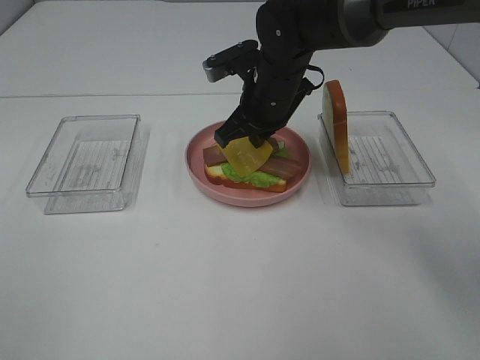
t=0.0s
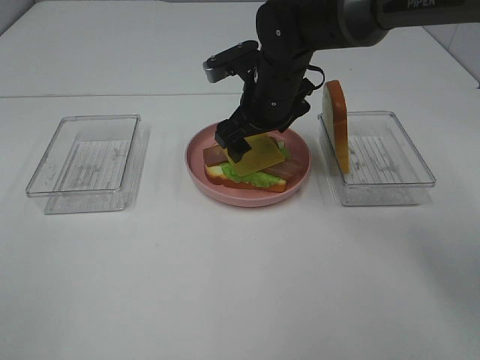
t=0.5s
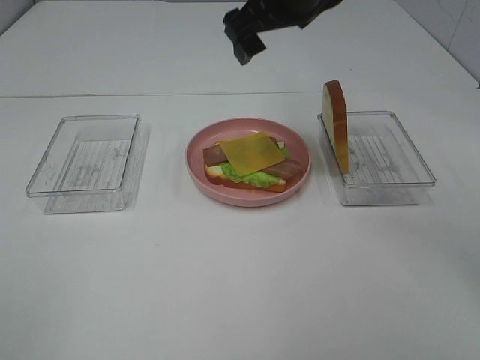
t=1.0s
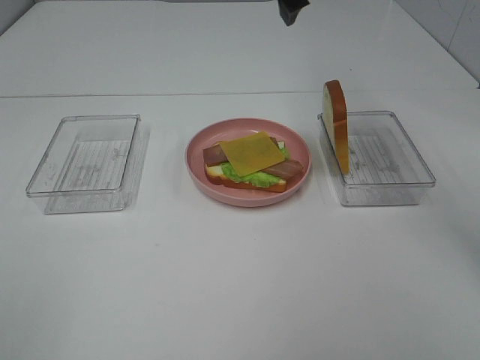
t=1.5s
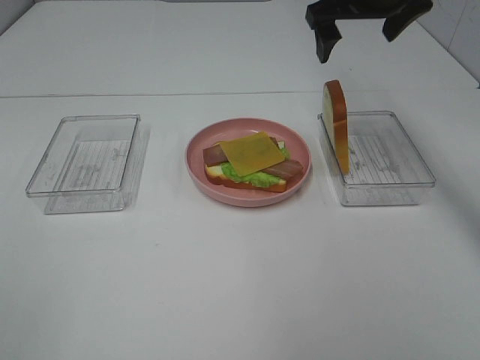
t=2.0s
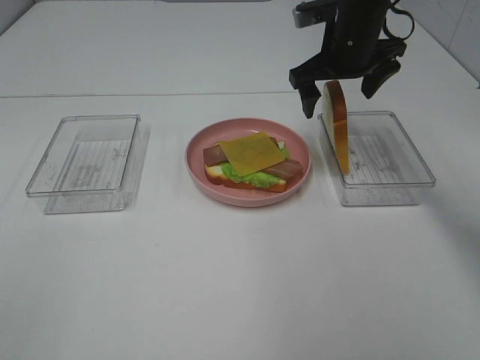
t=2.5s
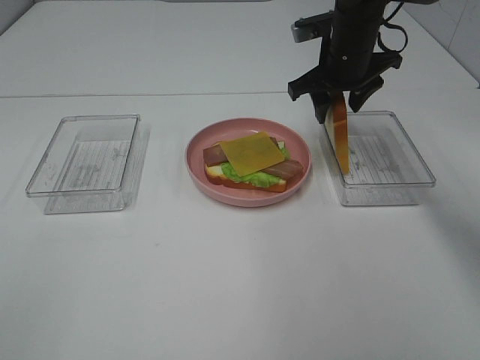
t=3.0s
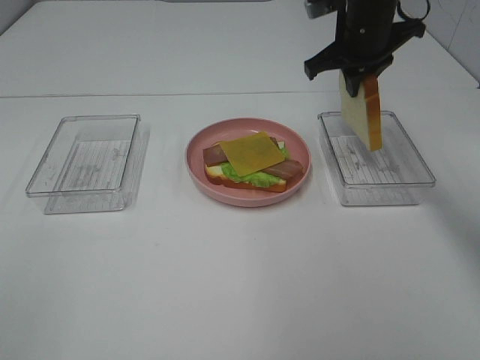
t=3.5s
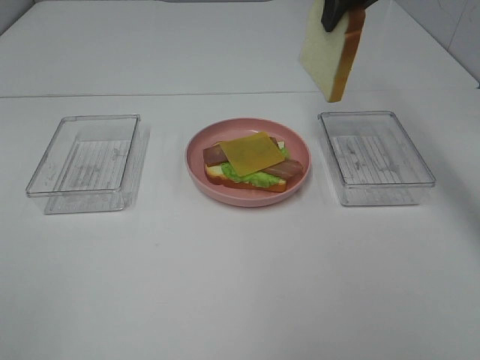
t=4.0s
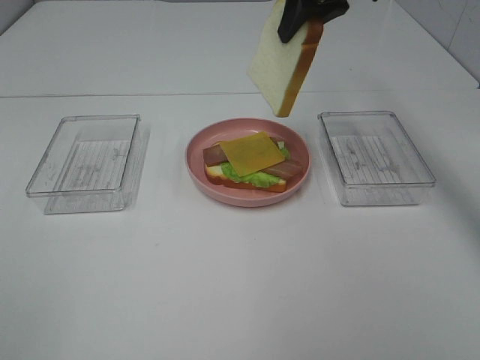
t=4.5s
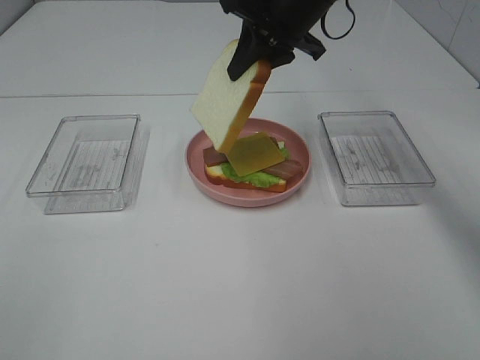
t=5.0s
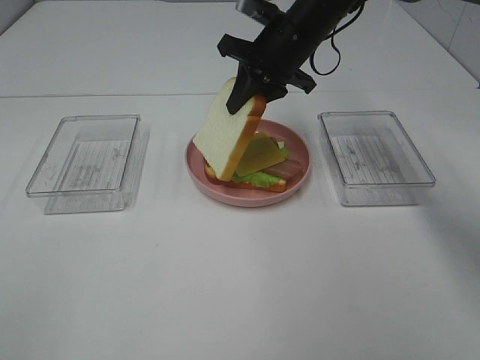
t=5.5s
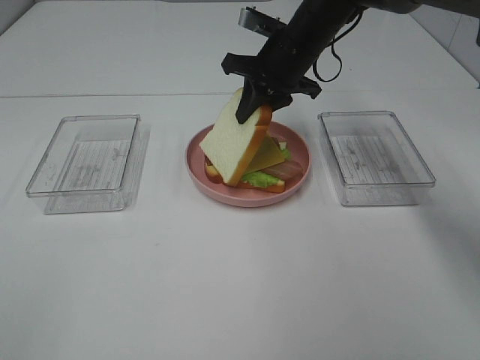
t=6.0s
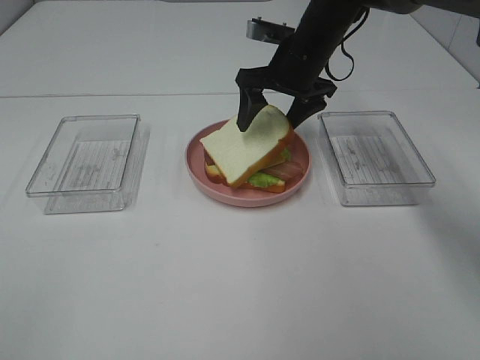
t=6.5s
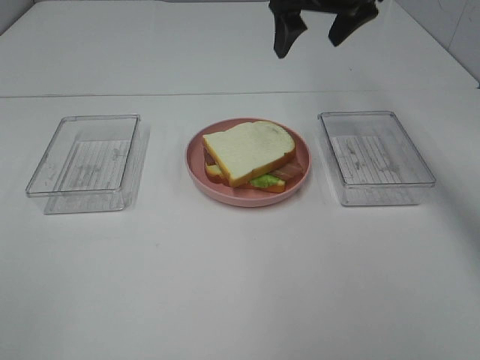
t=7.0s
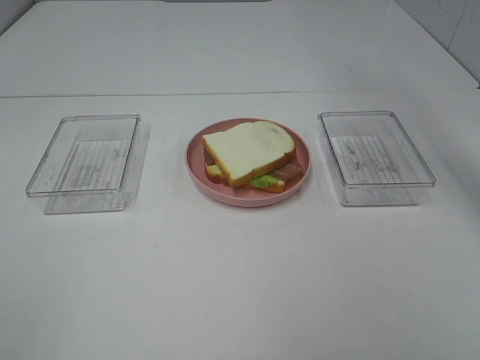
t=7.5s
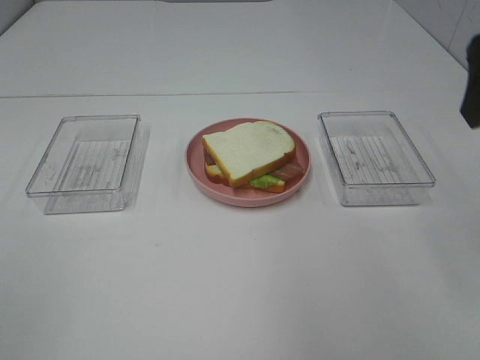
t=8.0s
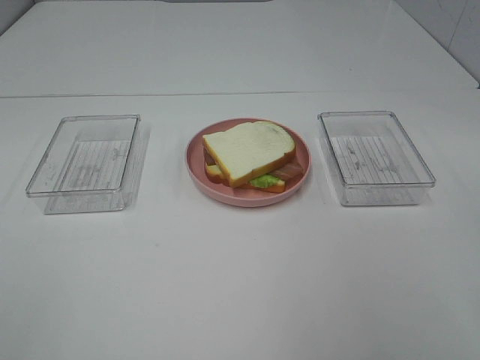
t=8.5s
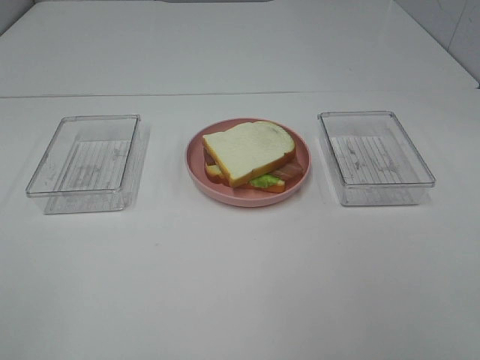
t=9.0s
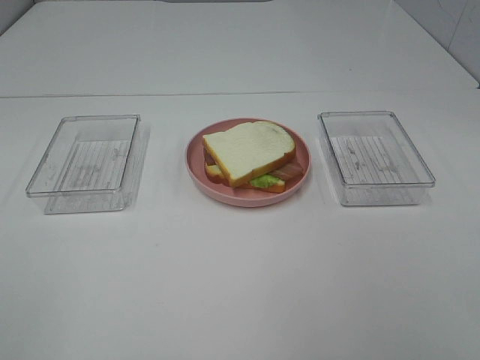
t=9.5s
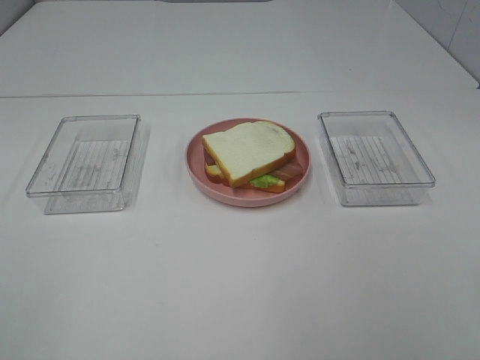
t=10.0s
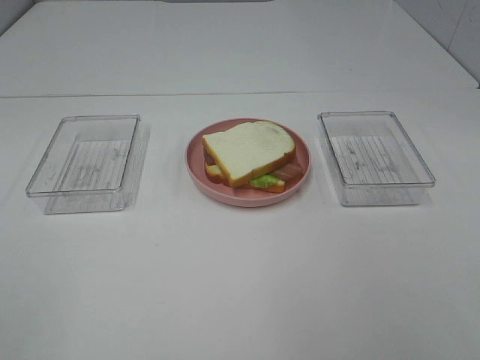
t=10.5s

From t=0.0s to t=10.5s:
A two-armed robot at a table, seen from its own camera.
Task of the whole recording: Make sandwiches.
Step, from t=1.0s to t=3.0s: Right hand:grab the bread slice.
Step, from t=3.5s to t=6.5s: Right hand:place the bread slice on the cheese slice.
From t=0.0s to t=2.0s: The right gripper goes about 15 cm upward and to the right, and opens up.
From t=2.0s to t=4.0s: The right gripper moves some 10 cm downward and comes back, and closes its fingers.
From t=4.0s to t=6.5s: The right gripper shifts some 15 cm downward, and opens up.
From t=6.5s to t=8.5s: The right gripper shifts roughly 40 cm backward and to the right.

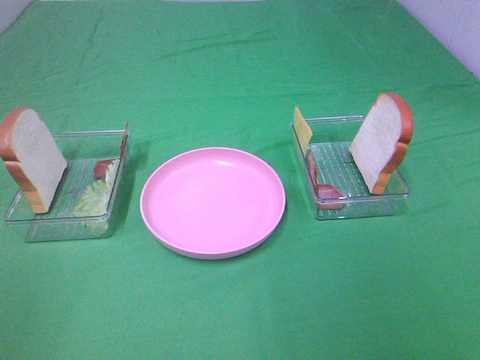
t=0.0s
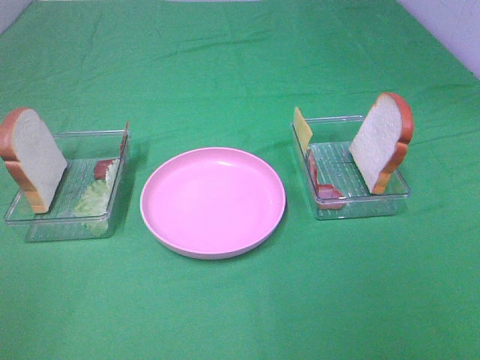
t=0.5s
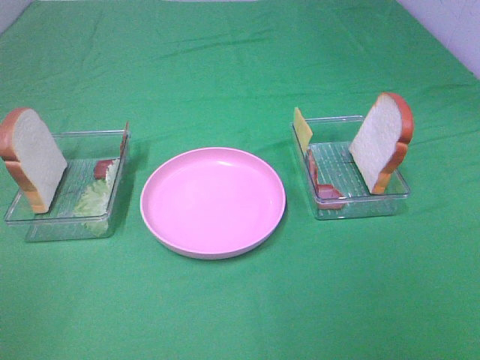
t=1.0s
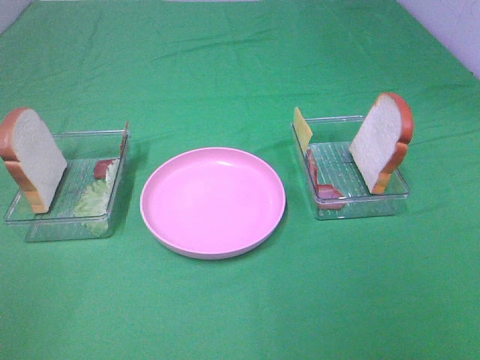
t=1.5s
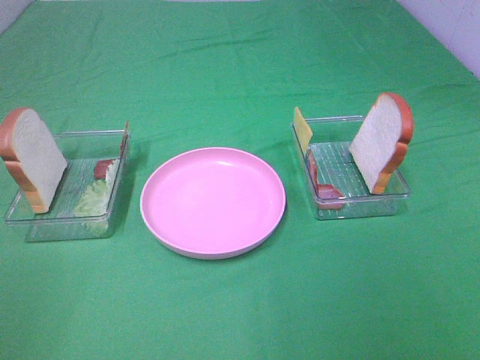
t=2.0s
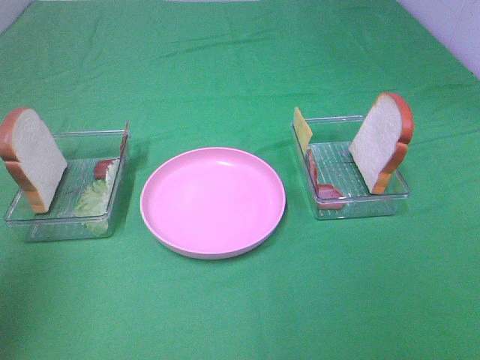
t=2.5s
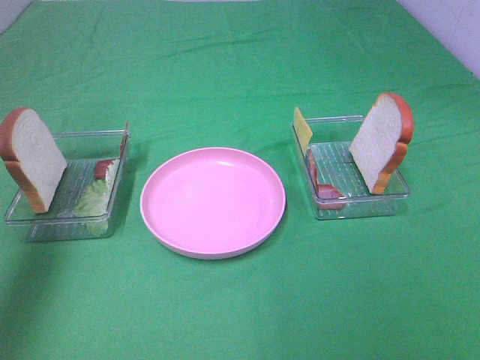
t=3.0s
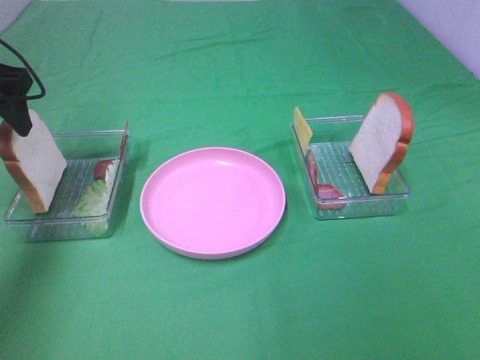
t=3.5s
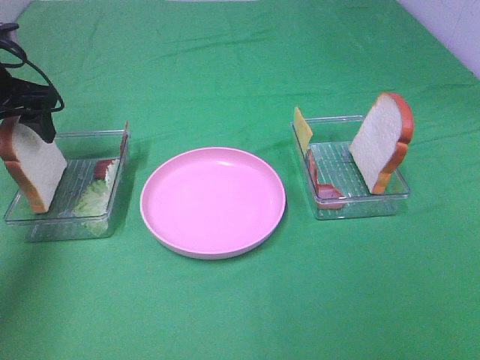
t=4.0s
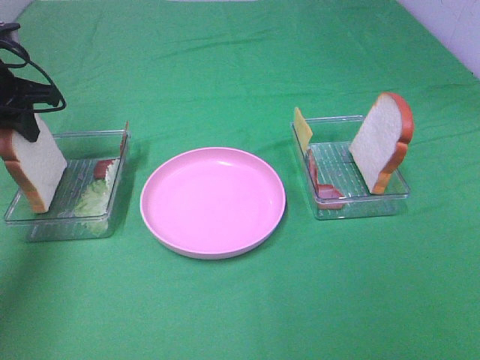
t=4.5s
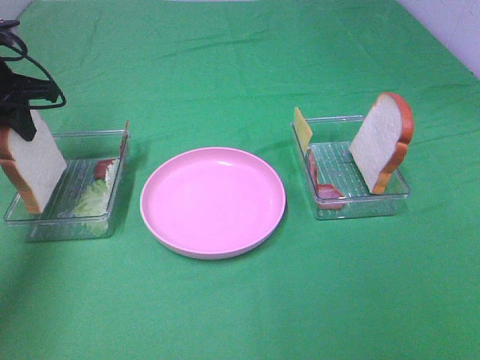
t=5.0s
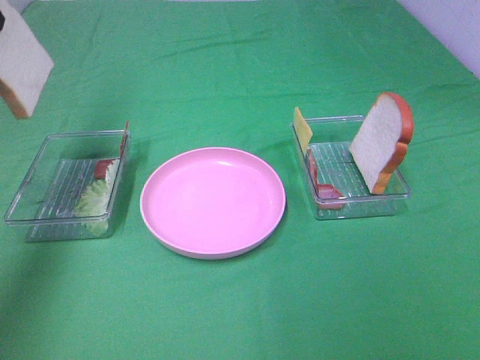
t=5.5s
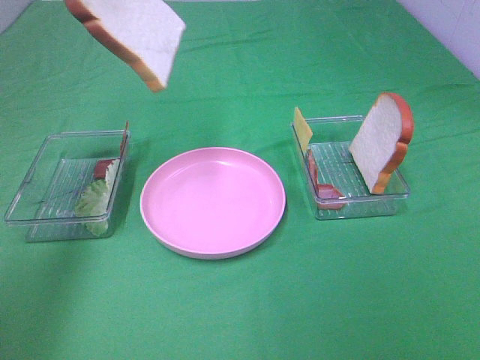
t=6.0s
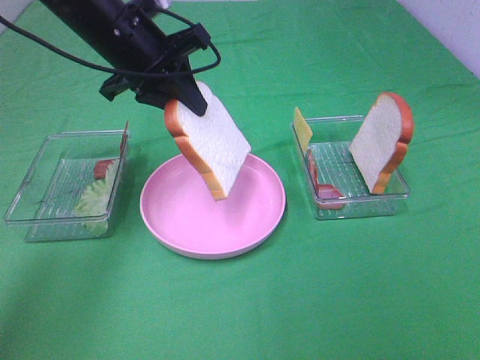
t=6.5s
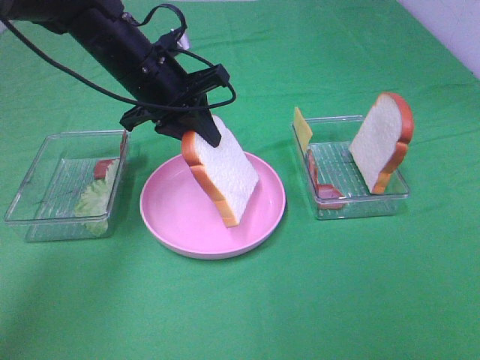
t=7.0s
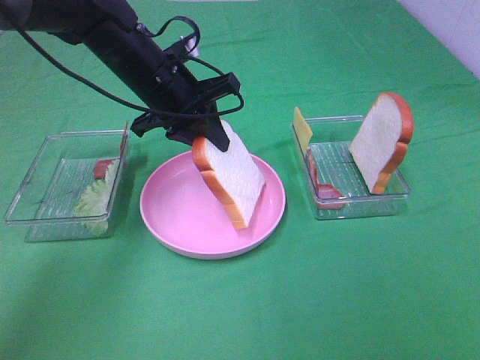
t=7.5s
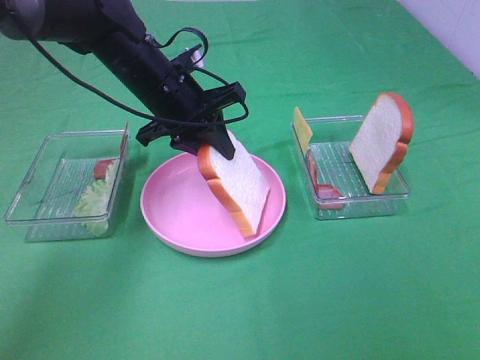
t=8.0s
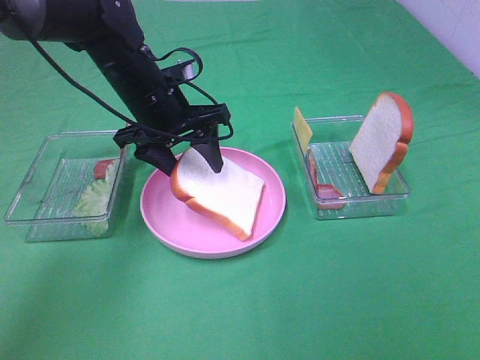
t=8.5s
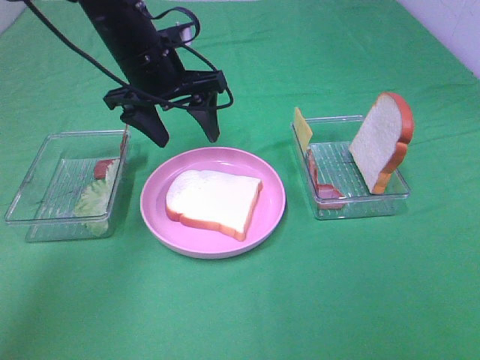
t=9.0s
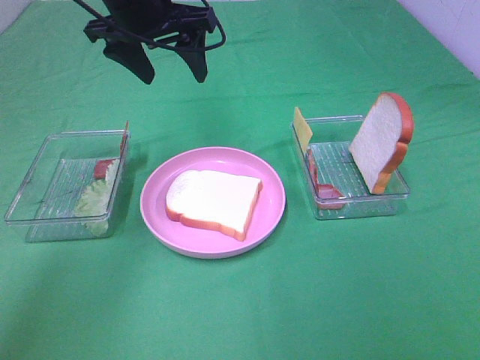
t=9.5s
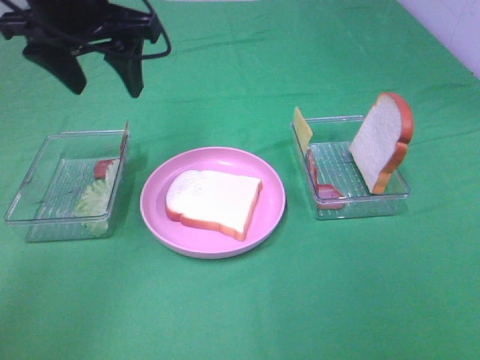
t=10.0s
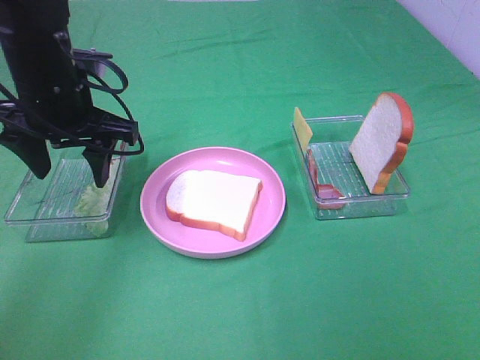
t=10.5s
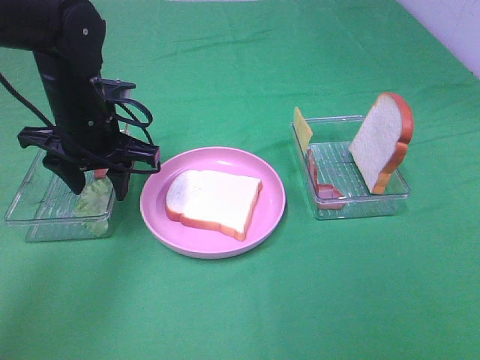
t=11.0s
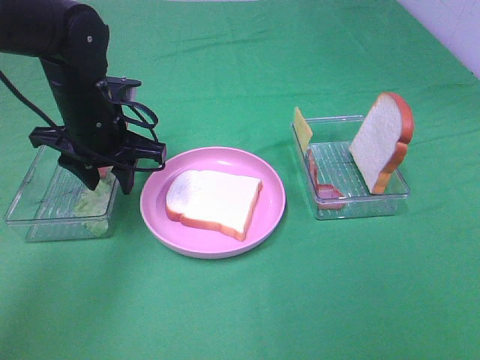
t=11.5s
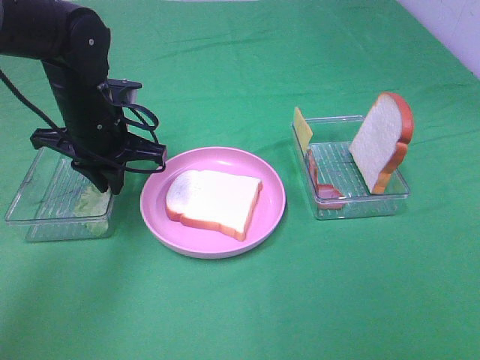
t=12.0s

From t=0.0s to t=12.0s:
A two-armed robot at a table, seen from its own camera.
Task of the whole recording: Make sandwiches.
Step, from t=0.0s to t=4.5s: Left hand:grab the bread slice.
Step, from t=5.0s to t=8.5s: Left hand:place the bread slice on the plate.
From t=2.0s to t=4.0s: The left gripper moves forward, approximately 40 cm.
From t=4.0s to t=6.0s: The left gripper is displaced upward and to the right by approximately 20 cm, and closes its fingers.
From t=6.0s to t=8.0s: The left gripper heads downward and to the right, covering some 25 cm.
From t=8.0s to t=10.0s: The left gripper moves upward and to the left, some 15 cm, and opens up.
From t=10.0s to t=12.0s: The left gripper travels downward by roughly 15 cm, and closes up.

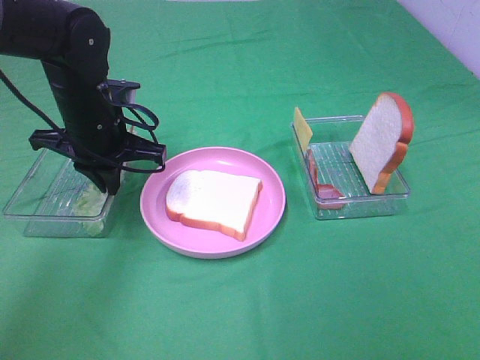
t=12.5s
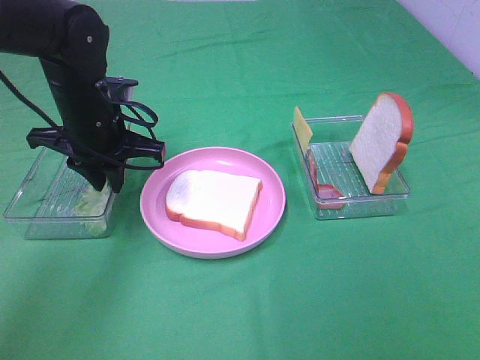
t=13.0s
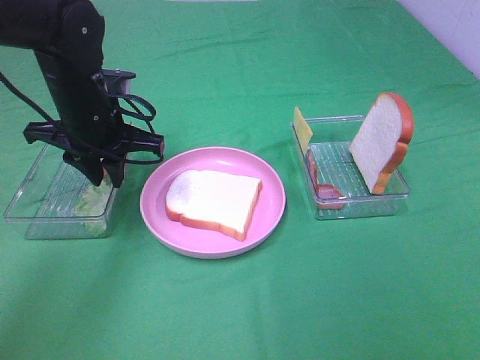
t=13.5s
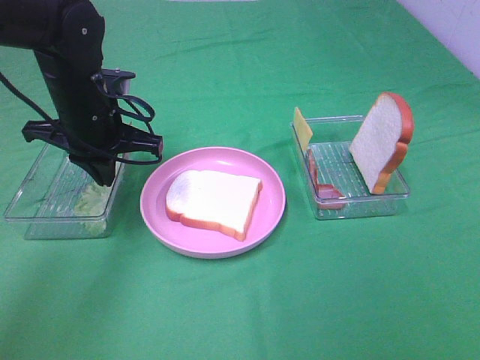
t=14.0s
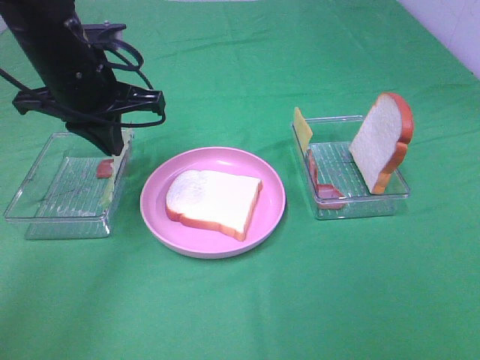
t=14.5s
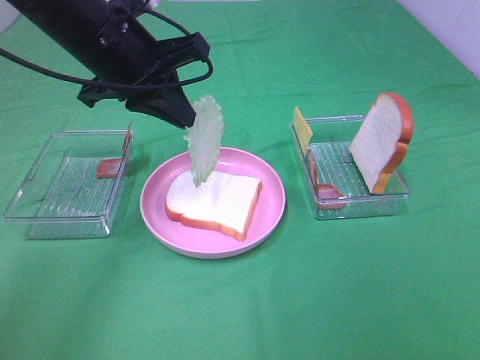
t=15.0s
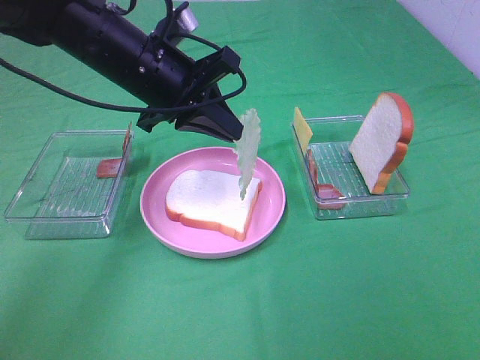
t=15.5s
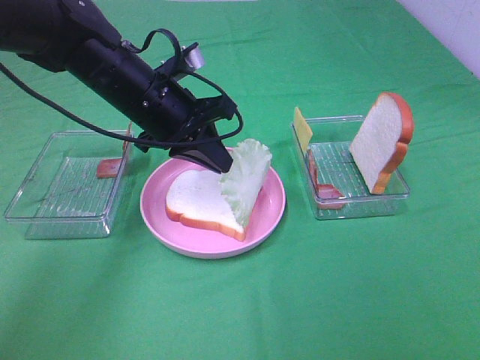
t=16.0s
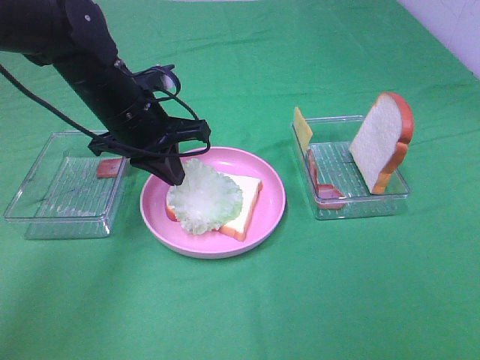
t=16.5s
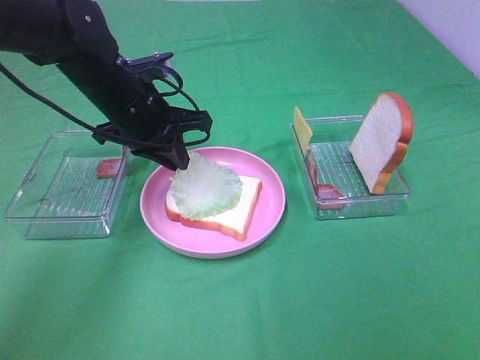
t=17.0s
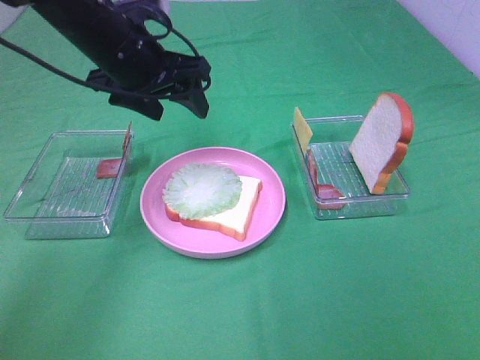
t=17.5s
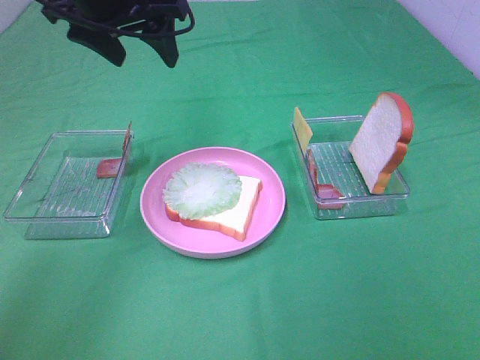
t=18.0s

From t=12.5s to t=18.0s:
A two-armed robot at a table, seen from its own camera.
Task of the whole recording: Make sandwiches.
Step, from t=12.5s to t=17.0s: Left hand:place the lettuce slice on the bread slice.
From t=12.5s to t=14.5s: The left gripper goes approximately 10 cm upward, and opens and closes again.
From t=14.5s to t=16.0s: The left gripper goes about 10 cm to the right and downward.
From t=16.0s to t=18.0s: The left gripper is displaced upward by approximately 15 cm, and opens its fingers.
